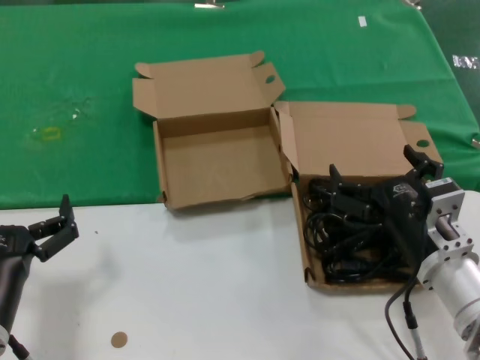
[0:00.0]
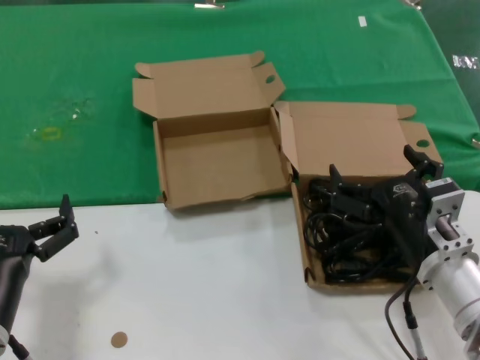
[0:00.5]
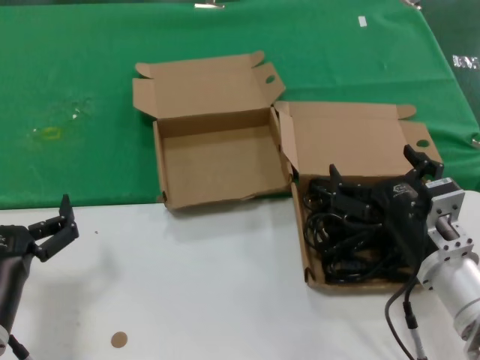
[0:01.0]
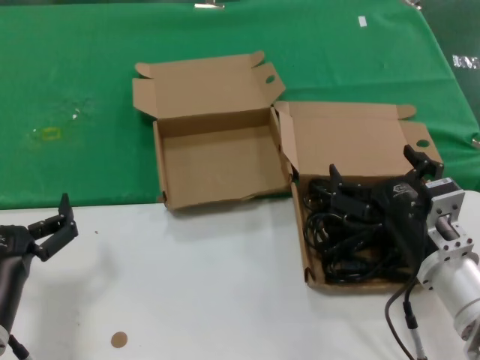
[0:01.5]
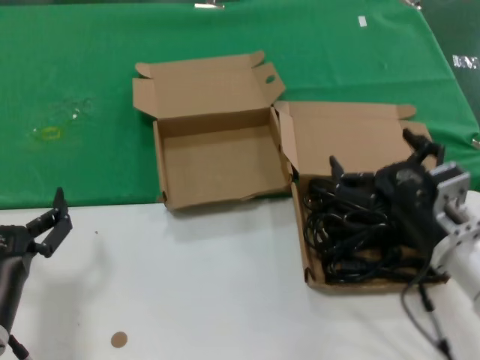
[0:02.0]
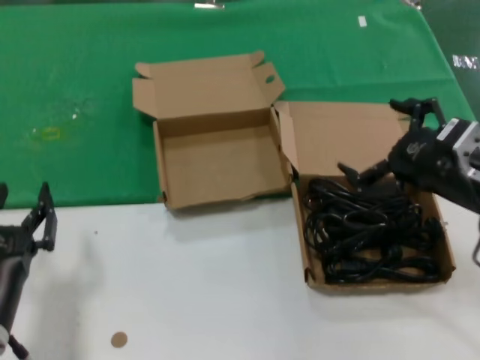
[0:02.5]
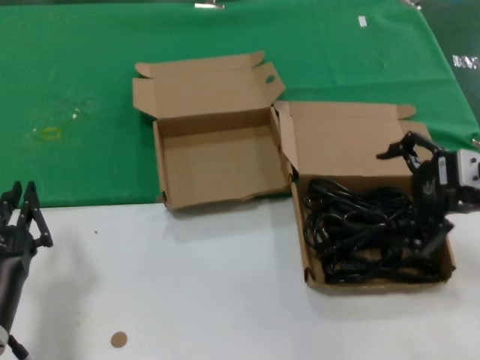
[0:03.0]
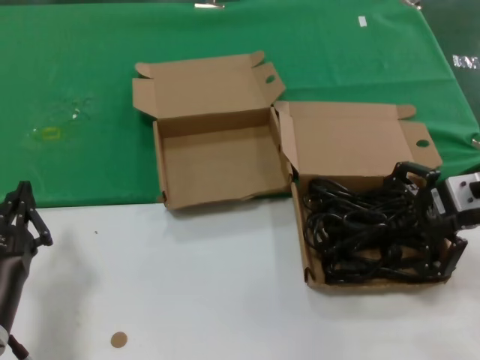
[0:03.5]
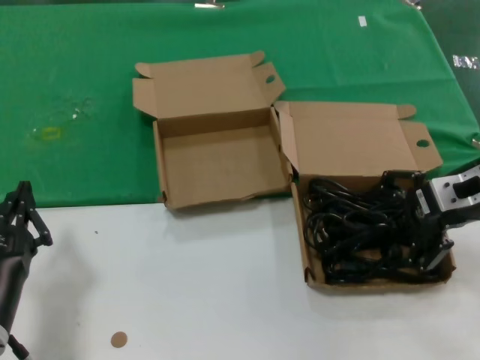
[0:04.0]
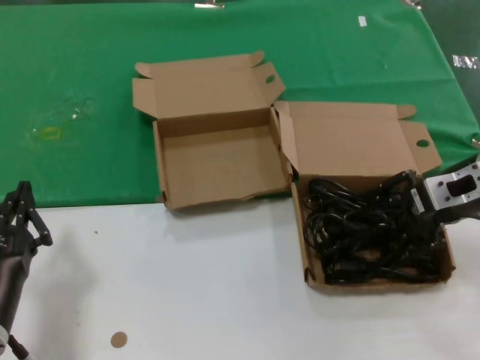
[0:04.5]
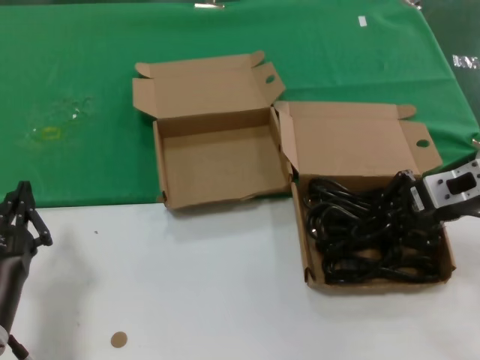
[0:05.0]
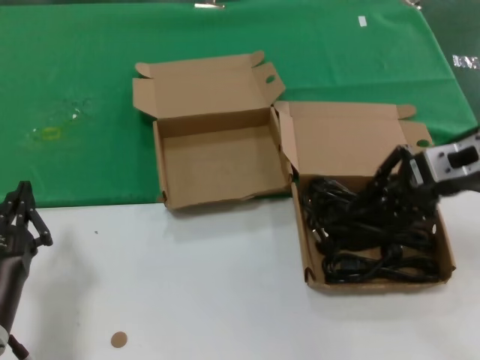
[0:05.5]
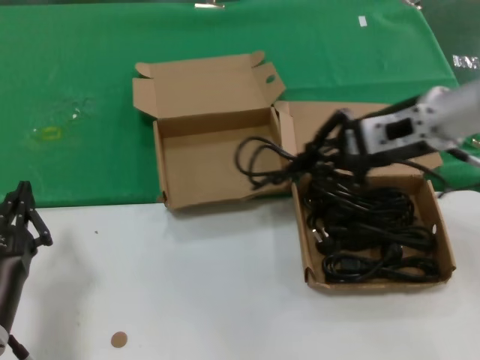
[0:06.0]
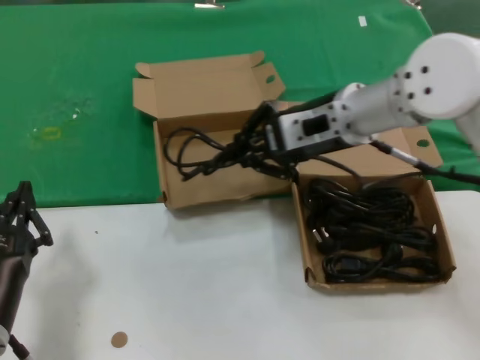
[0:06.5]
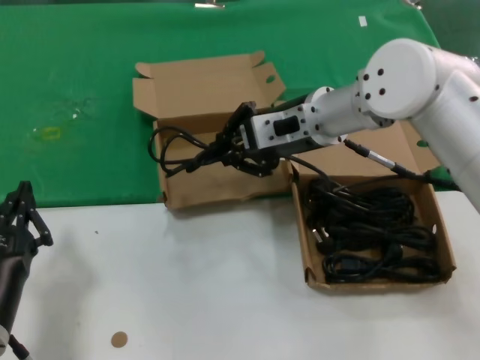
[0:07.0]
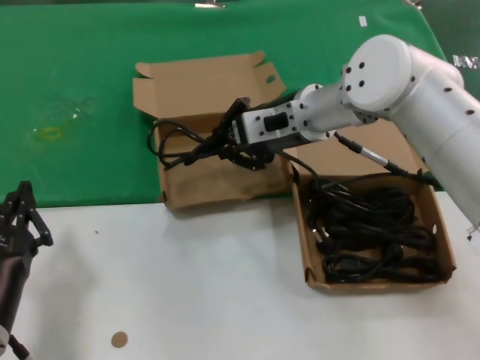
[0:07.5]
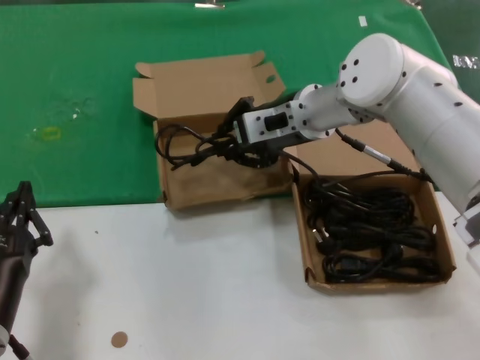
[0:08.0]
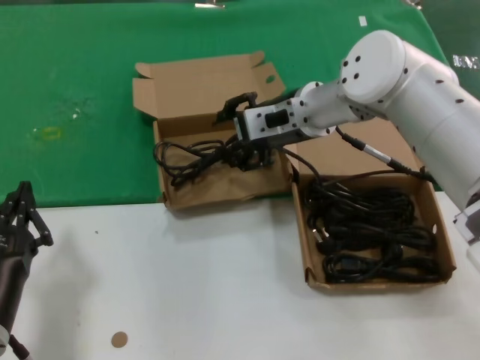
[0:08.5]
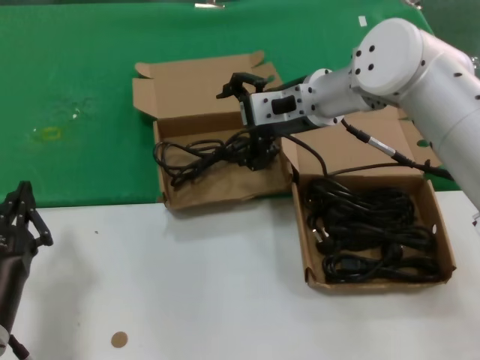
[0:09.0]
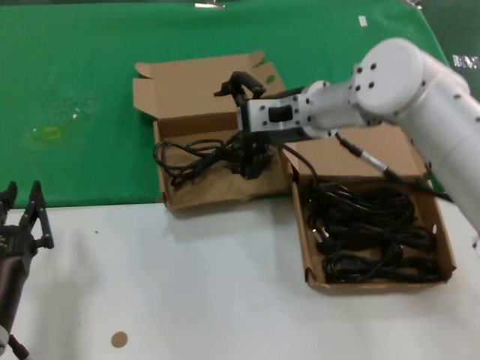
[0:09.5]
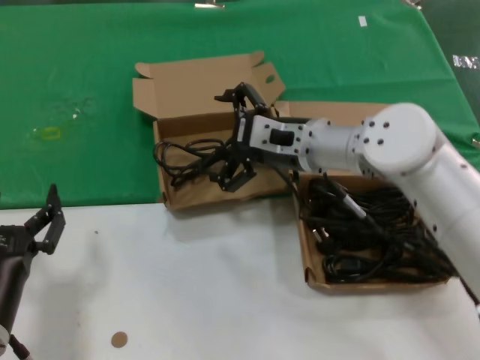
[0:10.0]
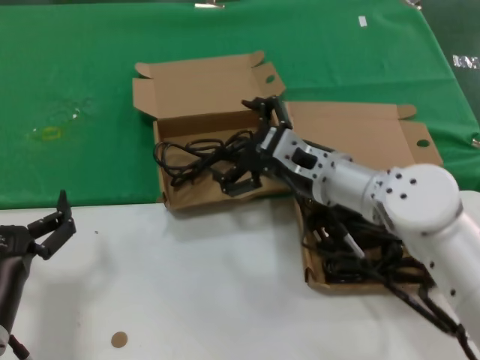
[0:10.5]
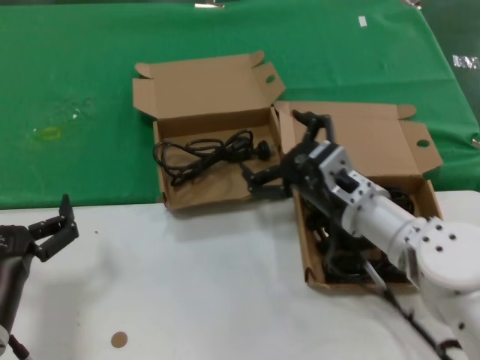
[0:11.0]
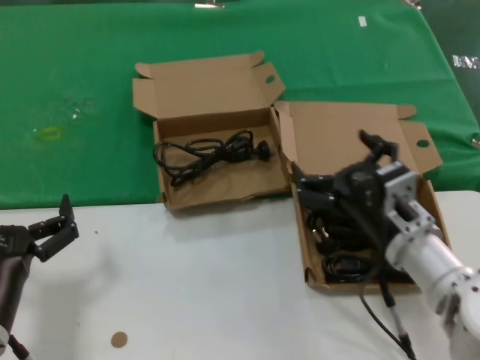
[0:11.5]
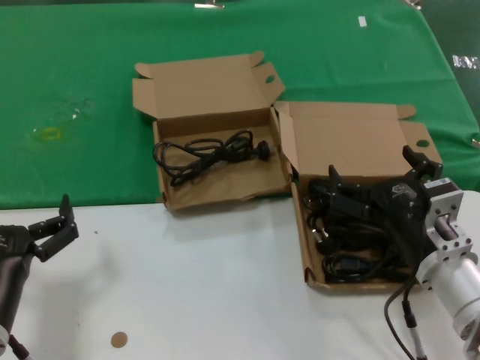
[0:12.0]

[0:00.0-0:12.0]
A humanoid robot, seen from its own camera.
Task of the whole recording: take the parts from the box containing them and put them into an empty box.
Step, 0:00.0 to 0:04.5: Grasp the data cable.
Step, 0:05.0 to 0:08.0: Place the data cable in the another box.
0:00.0 to 0:02.0: The hands stay close to where they were, moving slightly.
0:02.0 to 0:04.0: The right hand moves upward, forward and to the right, approximately 20 cm.
0:04.0 to 0:06.0: The right hand goes approximately 10 cm to the left and upward.
0:06.0 to 0:08.0: The right hand goes roughly 15 cm to the left and forward.
0:08.0 to 0:10.0: The right hand shifts by some 5 cm.
0:10.0 to 0:12.0: The right hand heads backward, downward and to the right, covering roughly 25 cm.

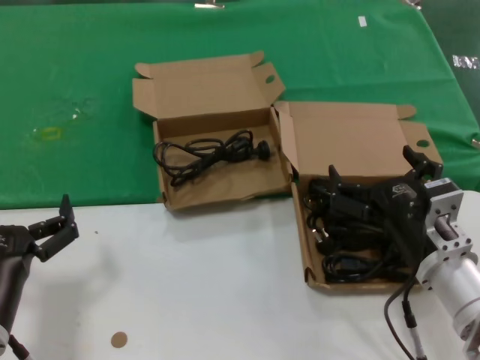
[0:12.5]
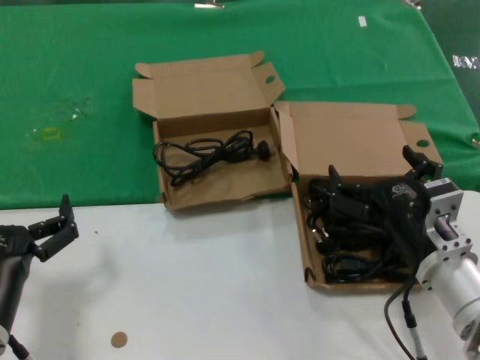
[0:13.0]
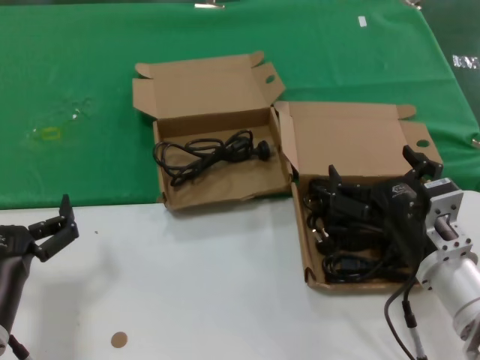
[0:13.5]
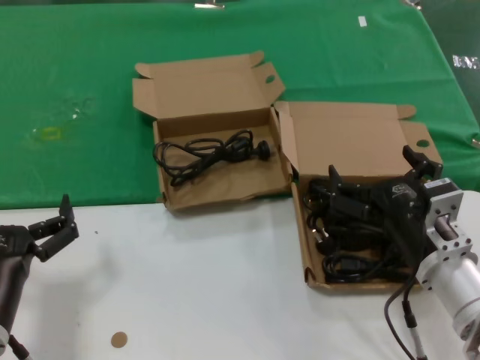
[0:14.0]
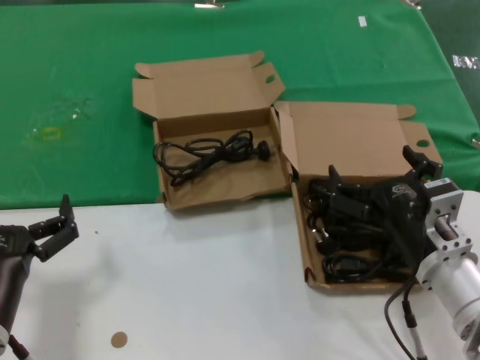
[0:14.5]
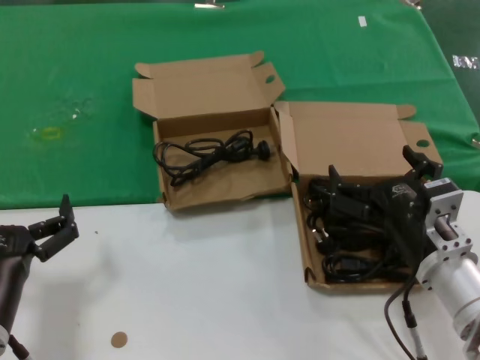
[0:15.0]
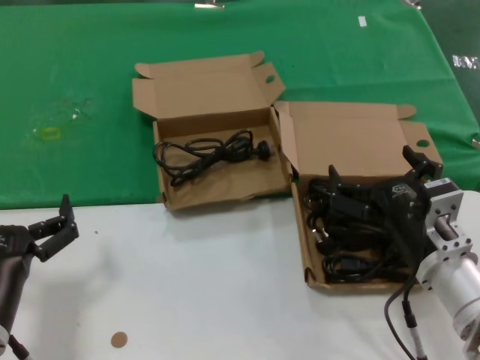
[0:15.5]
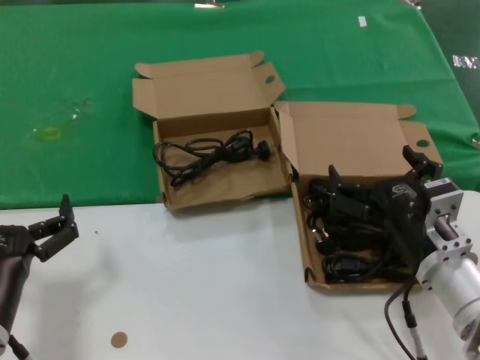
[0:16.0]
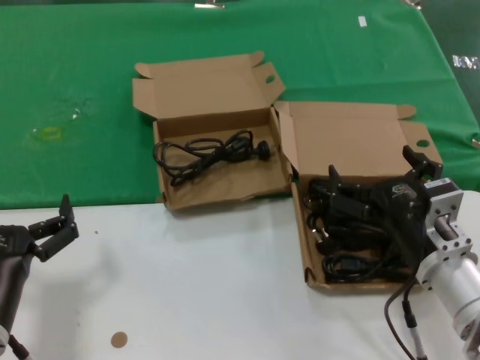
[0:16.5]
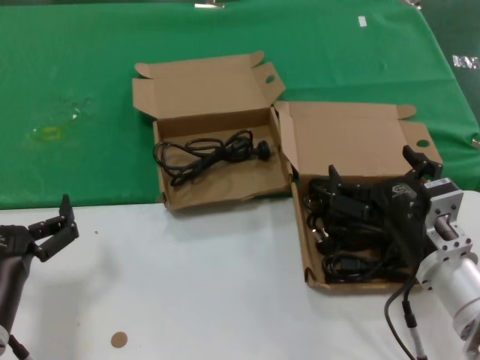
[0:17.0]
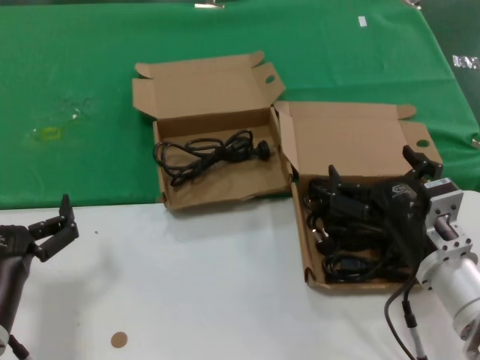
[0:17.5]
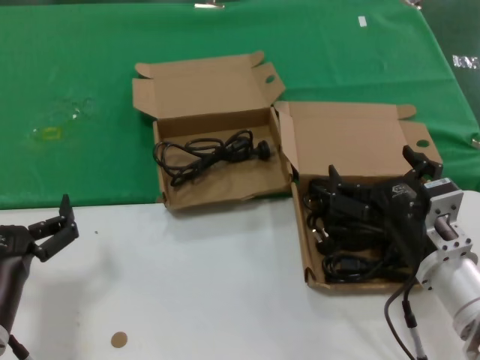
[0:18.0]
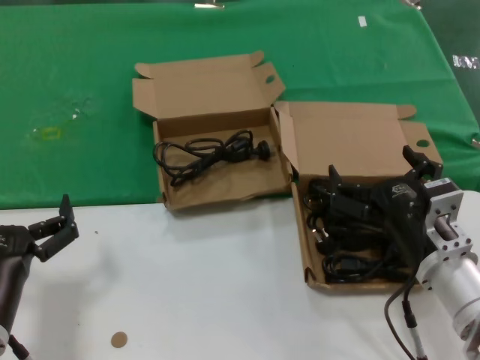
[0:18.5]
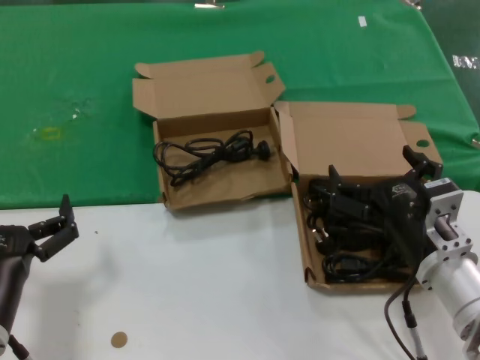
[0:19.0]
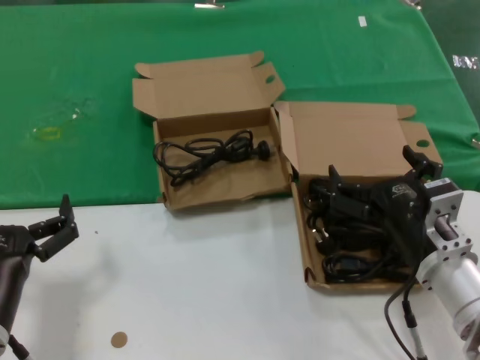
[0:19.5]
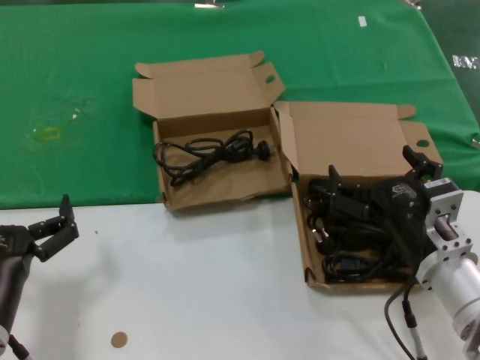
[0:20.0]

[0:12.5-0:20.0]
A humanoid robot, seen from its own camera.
Task of the whole recording: take the parts from the box containing them and put them into an empty box.
0:12.5 to 0:20.0: The two hands keep their place.

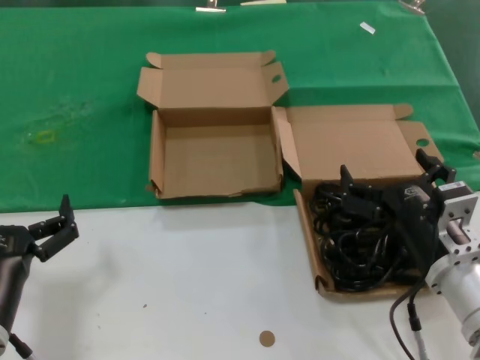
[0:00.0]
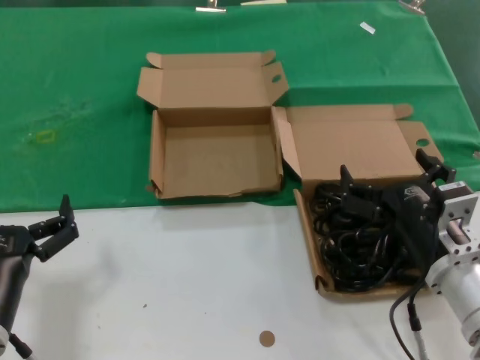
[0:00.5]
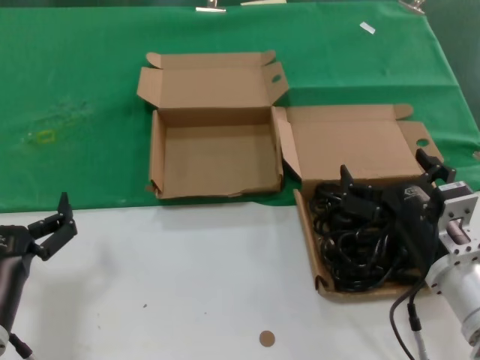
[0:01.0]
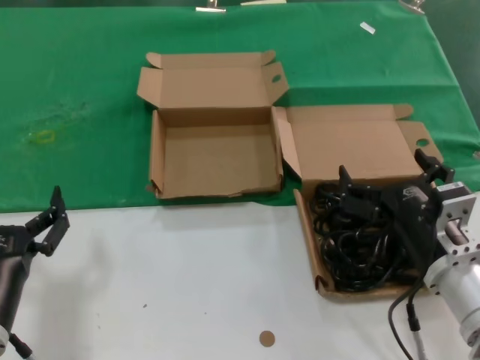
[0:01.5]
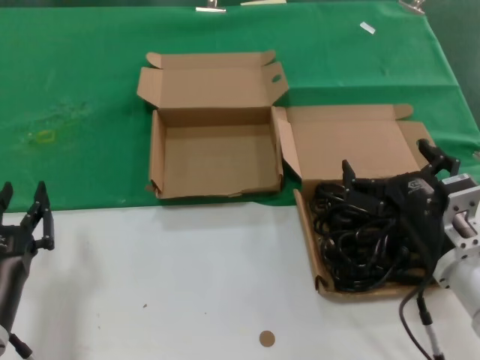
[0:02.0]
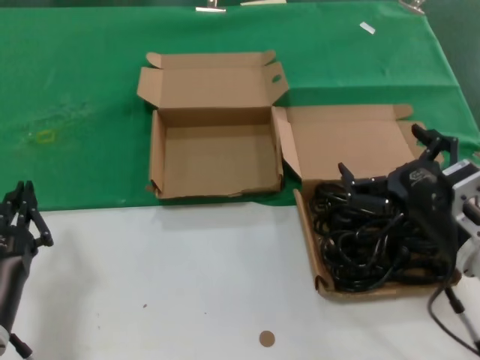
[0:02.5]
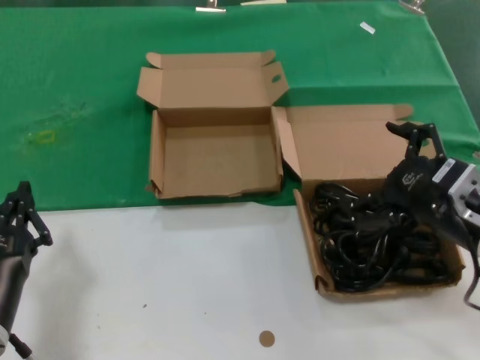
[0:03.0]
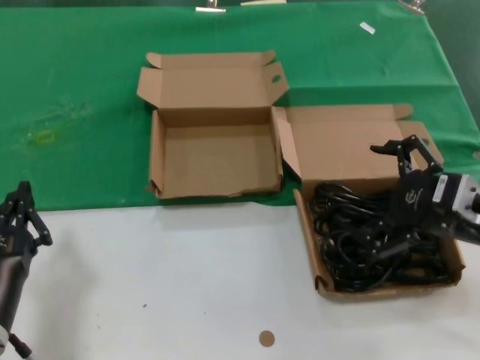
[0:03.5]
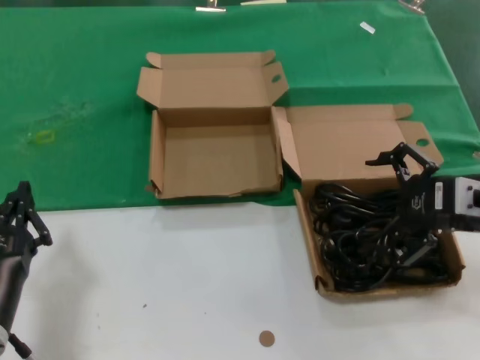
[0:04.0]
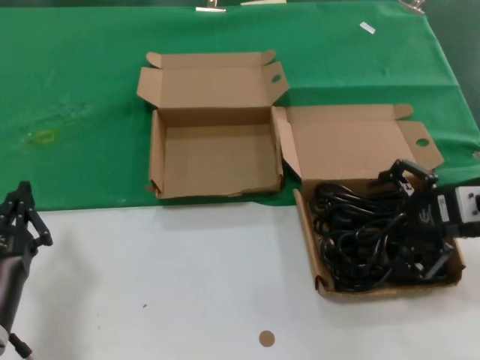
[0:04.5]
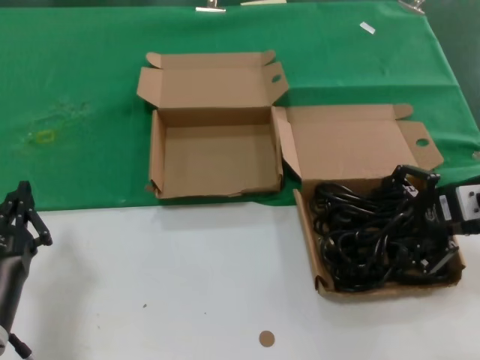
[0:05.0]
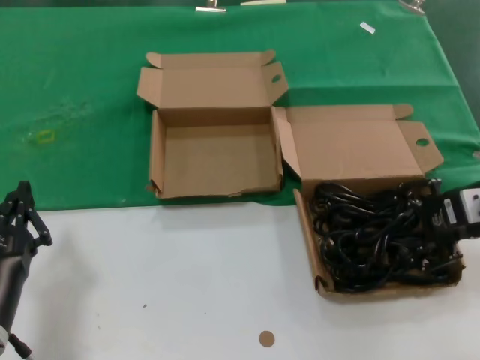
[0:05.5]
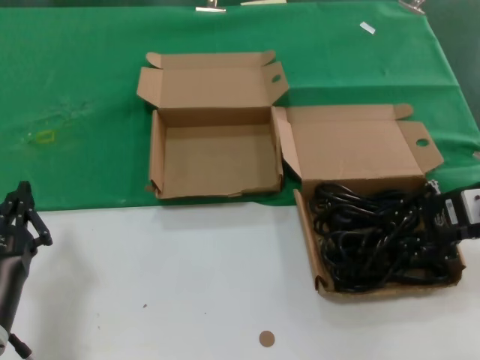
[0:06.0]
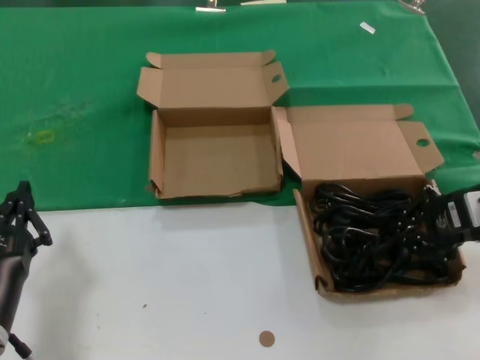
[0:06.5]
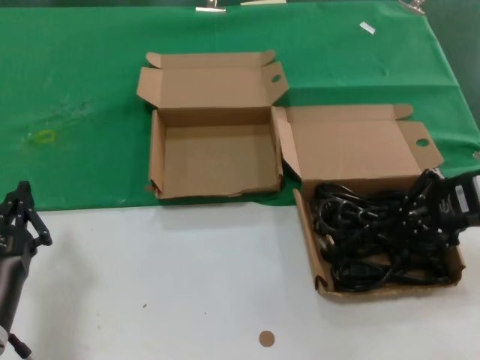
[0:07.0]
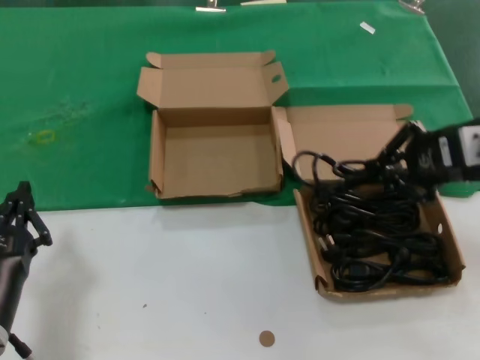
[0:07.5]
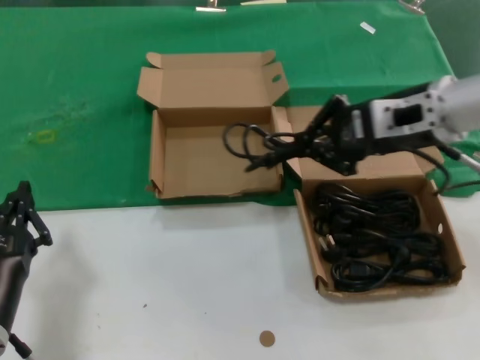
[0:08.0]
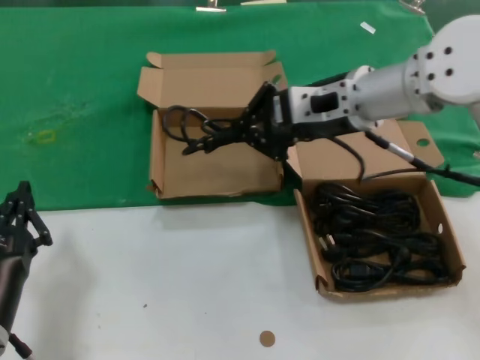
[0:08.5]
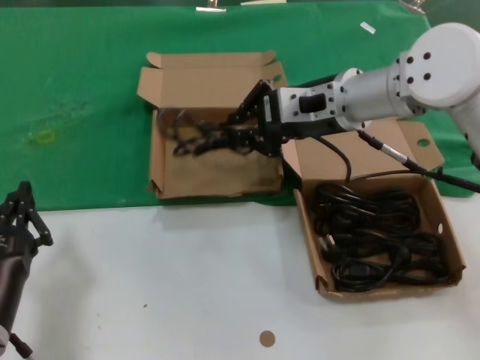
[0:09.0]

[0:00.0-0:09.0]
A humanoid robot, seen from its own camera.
Task of the whole recording: take the parts from the box containing them and put them into an empty box.
Step, 0:00.0 to 0:06.5: Grasp the data cable.
0:00.0 to 0:02.0: Both hands stay about where they are.
0:02.0 to 0:04.5: The right hand goes some 20 cm upward, to the right and forward.
0:04.5 to 0:07.0: There are only small adjustments of the hands.
0:07.0 to 0:09.0: The right hand is displaced to the left and forward by roughly 25 cm.
